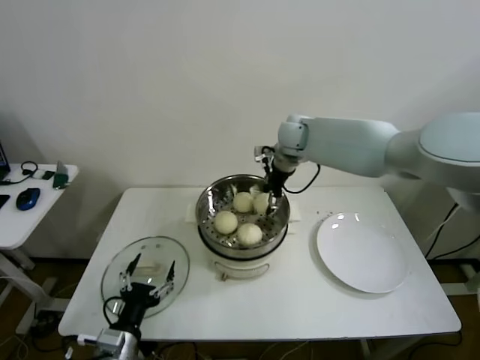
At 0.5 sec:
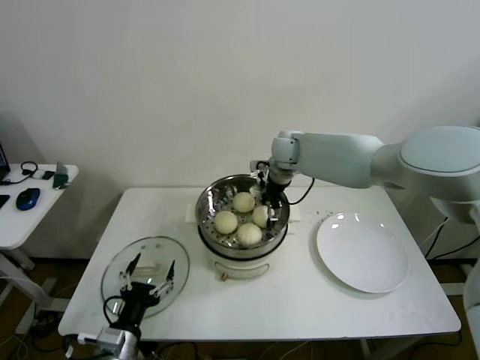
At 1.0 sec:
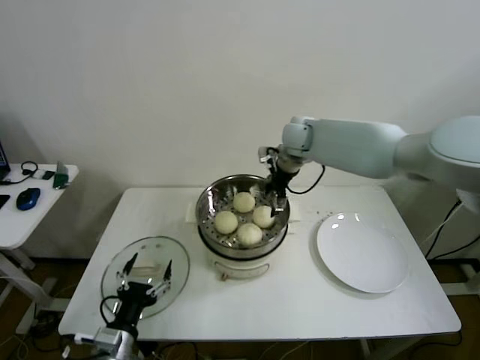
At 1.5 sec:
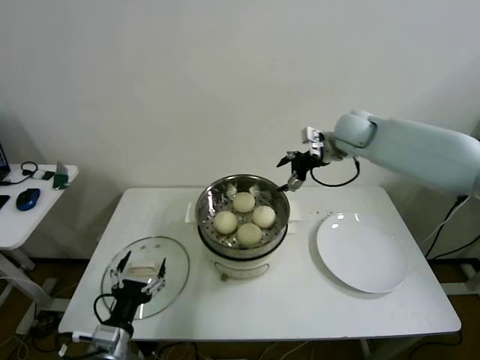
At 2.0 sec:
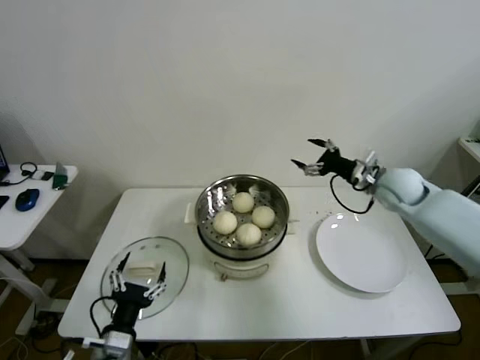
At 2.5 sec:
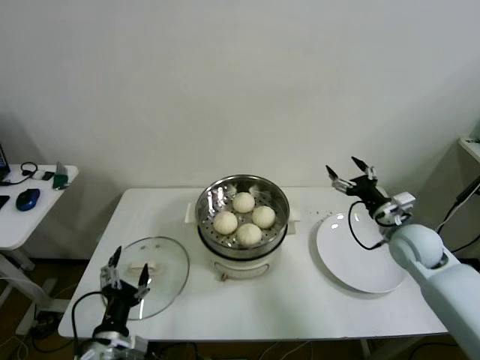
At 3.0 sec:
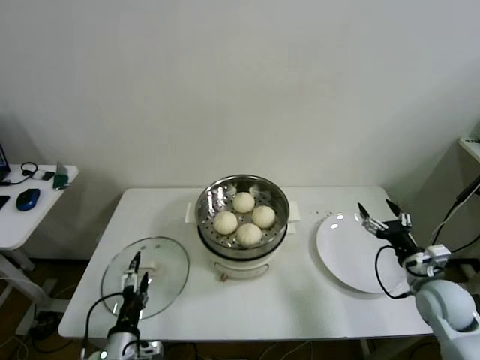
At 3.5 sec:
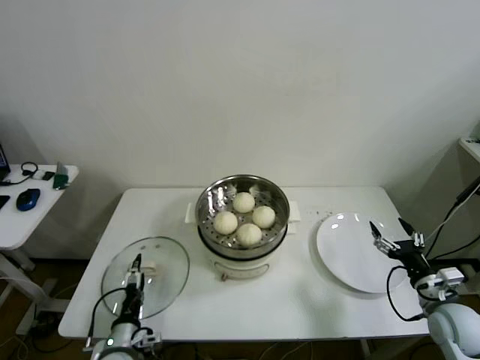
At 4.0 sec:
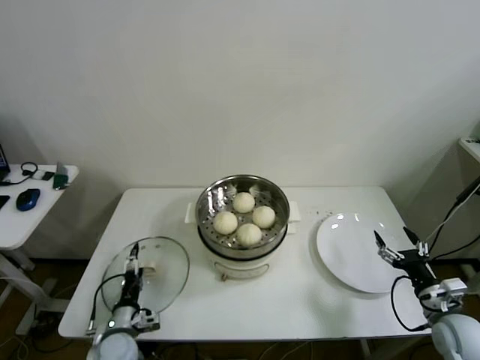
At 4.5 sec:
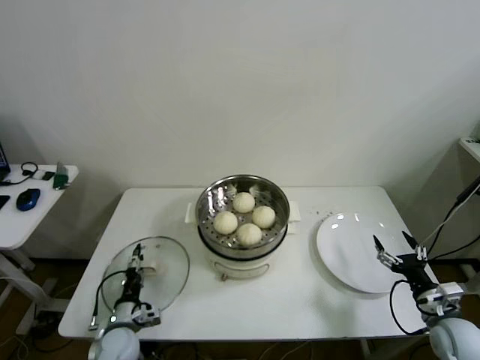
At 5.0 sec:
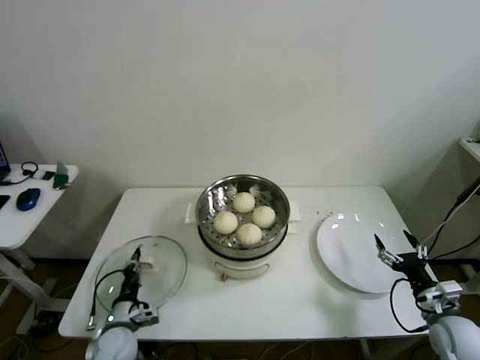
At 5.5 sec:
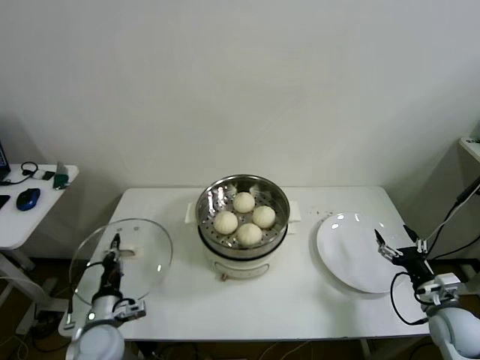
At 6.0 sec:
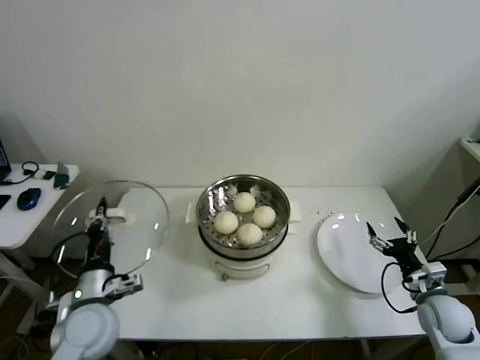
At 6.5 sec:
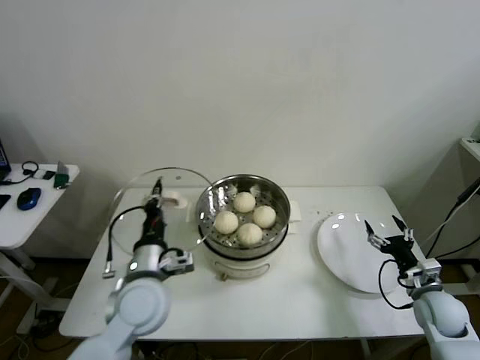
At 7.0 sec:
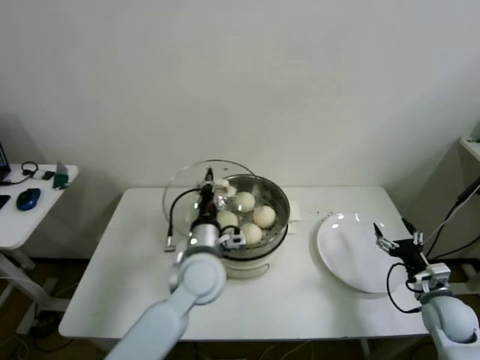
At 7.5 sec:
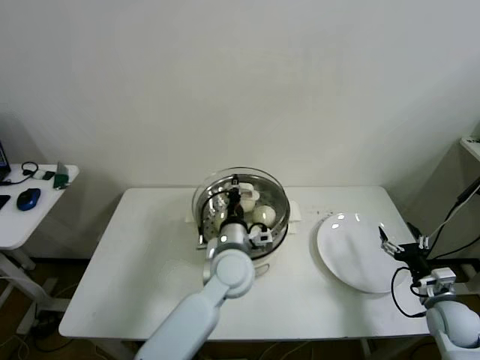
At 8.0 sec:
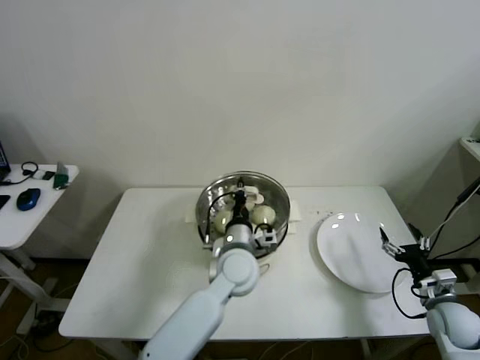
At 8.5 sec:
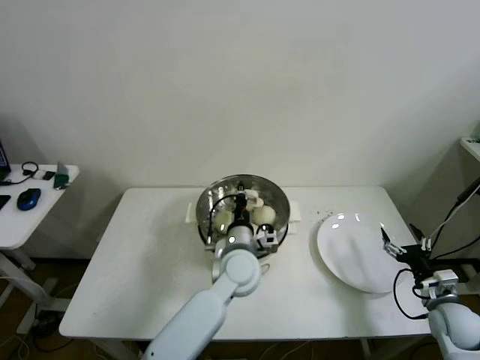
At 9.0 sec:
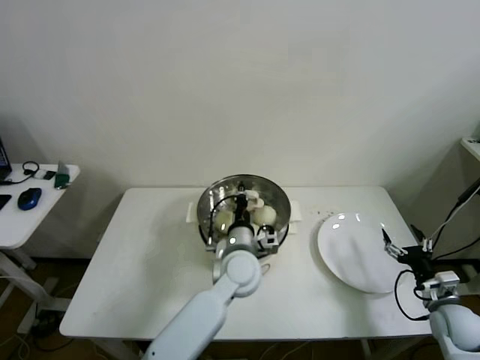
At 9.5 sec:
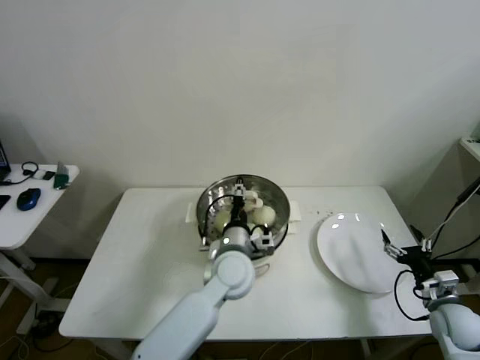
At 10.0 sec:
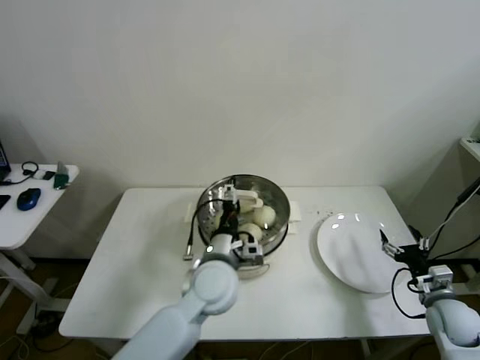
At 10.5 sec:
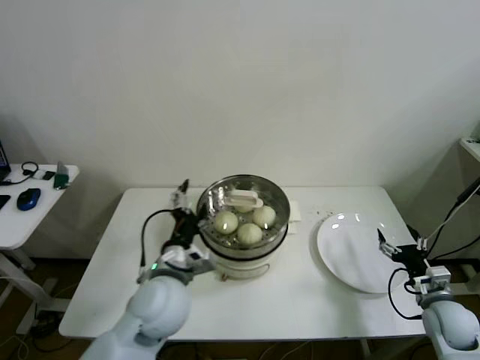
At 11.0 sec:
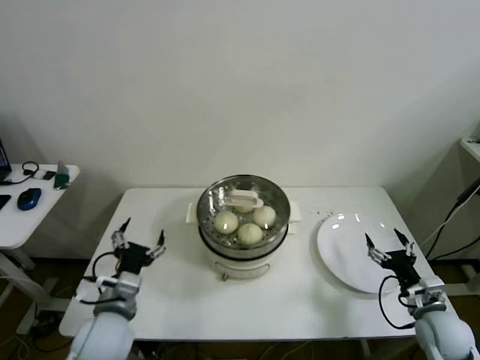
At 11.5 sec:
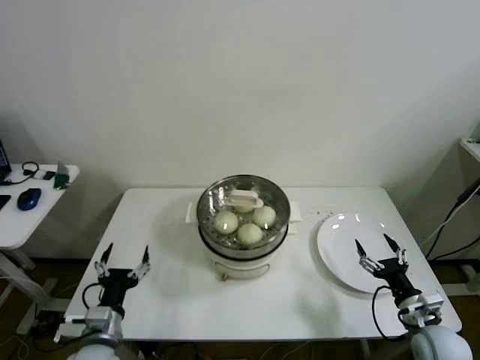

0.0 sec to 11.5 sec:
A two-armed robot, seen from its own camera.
Step, 0.5 sec to 4.5 sec: Grasp the pot lid with left gripper.
Step, 5.0 sec to 9.0 sec: Place the pot lid on the steamer with left gripper.
0.0 sec to 2.0 sec: The right gripper heads to the right and backward, covering some 25 cm, and opens up.
2.0 sec to 4.0 sec: The left gripper shifts some 15 cm downward and forward. The right gripper goes some 30 cm backward and downward.
4.0 sec to 6.0 sec: The left gripper is displaced upward by roughly 15 cm, and closes.
6.0 sec to 7.5 sec: The left gripper moves to the right and forward, approximately 30 cm.
7.5 sec to 9.5 sec: The left gripper opens its fingers.
9.5 sec to 11.5 sec: The right gripper moves to the left, roughly 5 cm. The left gripper heads to the left and backward, covering approximately 30 cm, and opens its fingers.
